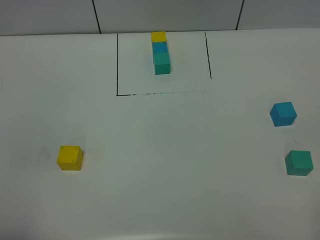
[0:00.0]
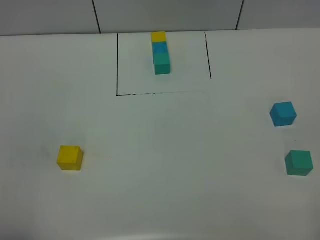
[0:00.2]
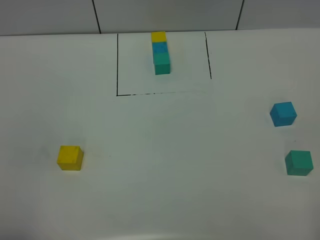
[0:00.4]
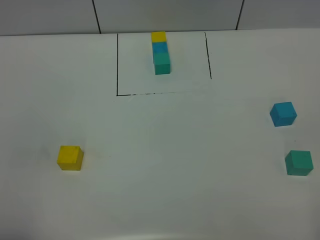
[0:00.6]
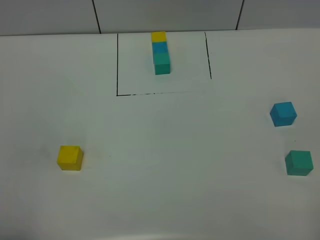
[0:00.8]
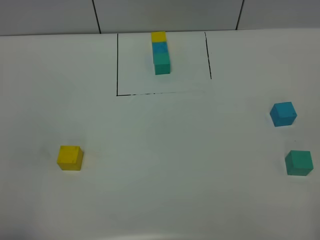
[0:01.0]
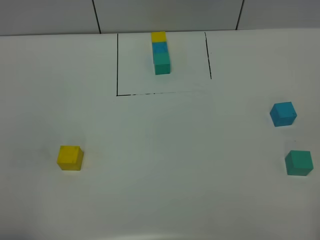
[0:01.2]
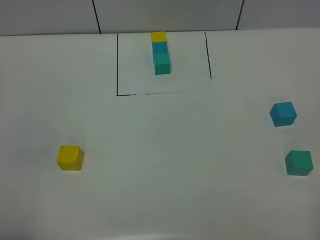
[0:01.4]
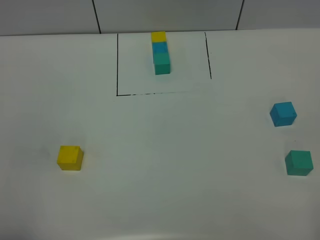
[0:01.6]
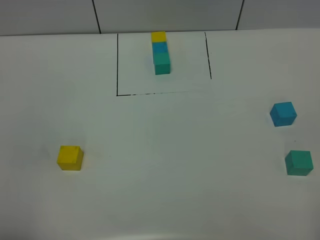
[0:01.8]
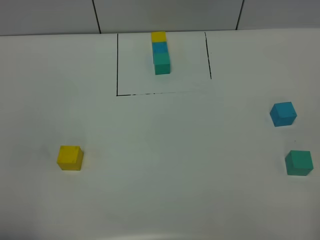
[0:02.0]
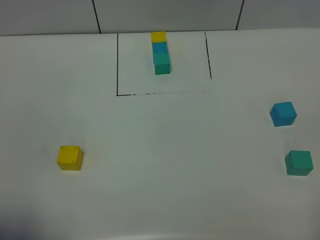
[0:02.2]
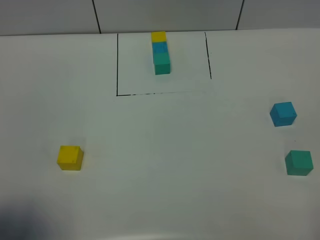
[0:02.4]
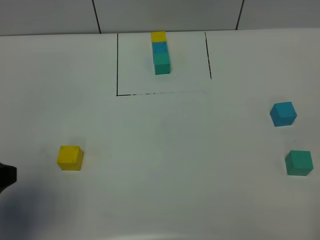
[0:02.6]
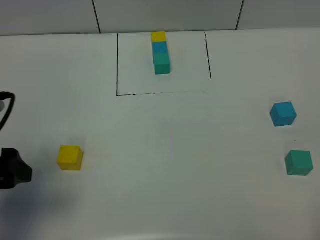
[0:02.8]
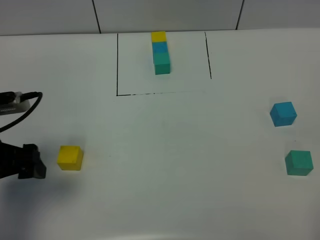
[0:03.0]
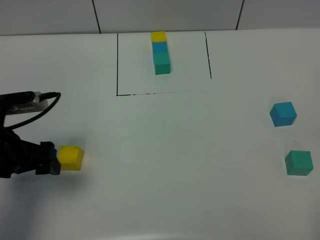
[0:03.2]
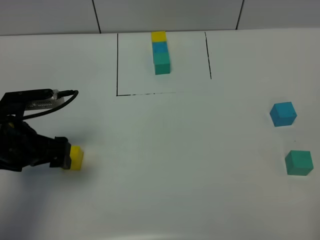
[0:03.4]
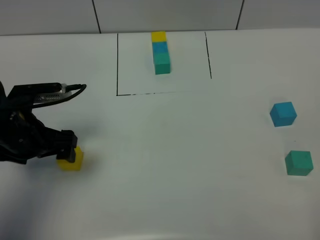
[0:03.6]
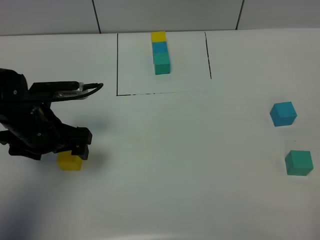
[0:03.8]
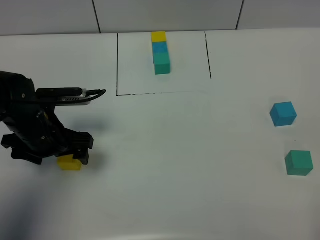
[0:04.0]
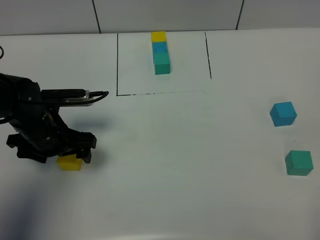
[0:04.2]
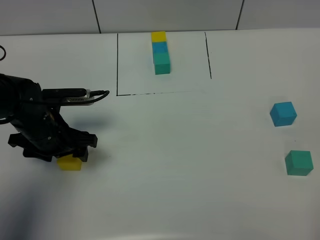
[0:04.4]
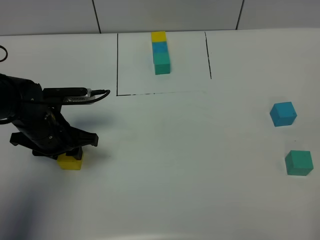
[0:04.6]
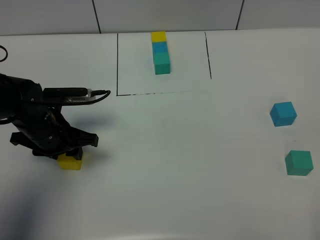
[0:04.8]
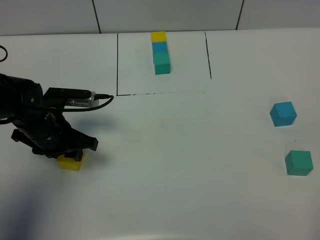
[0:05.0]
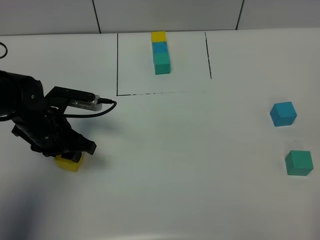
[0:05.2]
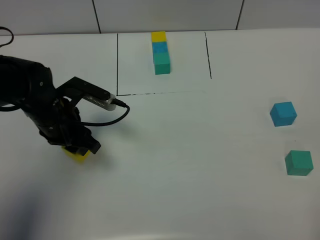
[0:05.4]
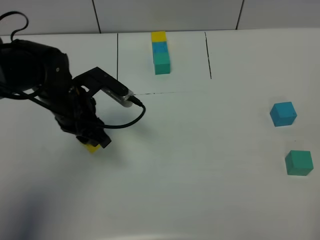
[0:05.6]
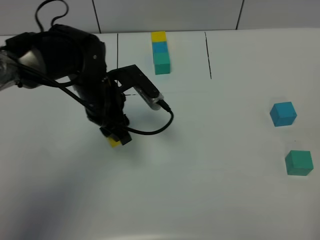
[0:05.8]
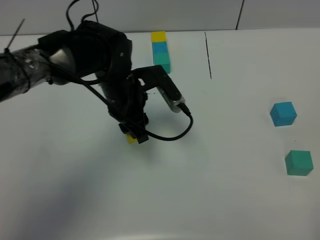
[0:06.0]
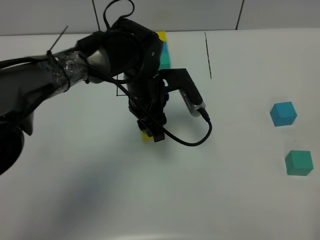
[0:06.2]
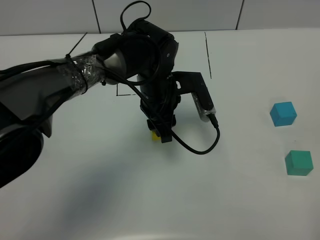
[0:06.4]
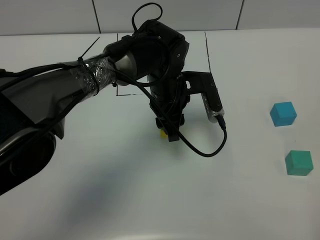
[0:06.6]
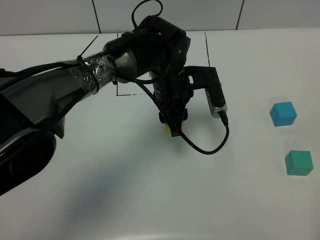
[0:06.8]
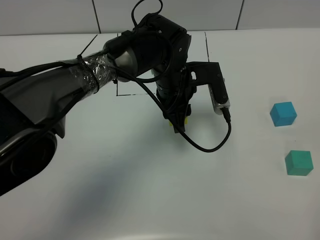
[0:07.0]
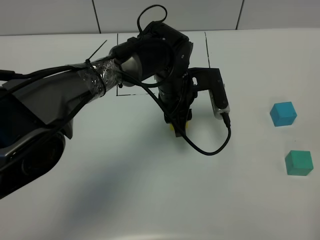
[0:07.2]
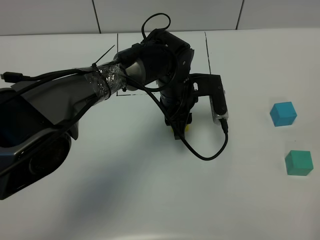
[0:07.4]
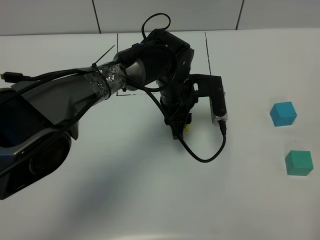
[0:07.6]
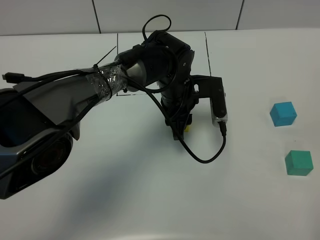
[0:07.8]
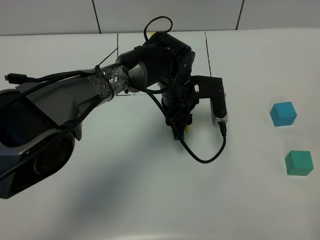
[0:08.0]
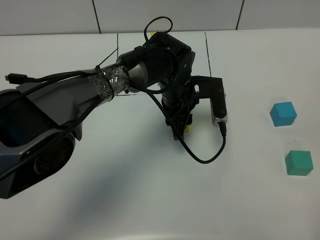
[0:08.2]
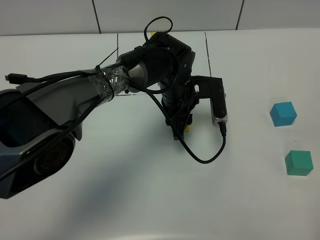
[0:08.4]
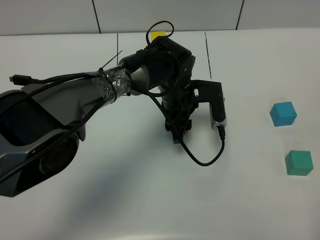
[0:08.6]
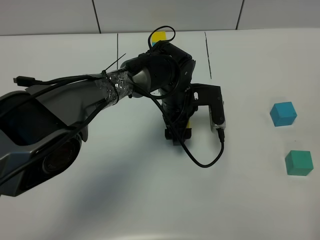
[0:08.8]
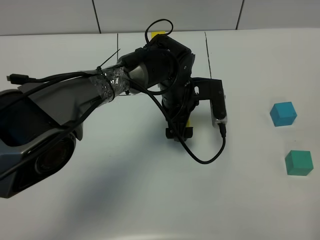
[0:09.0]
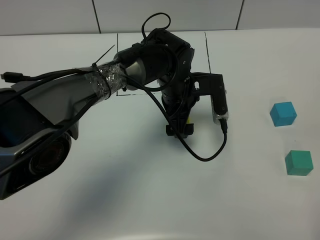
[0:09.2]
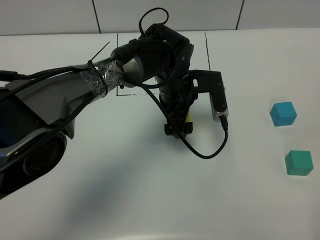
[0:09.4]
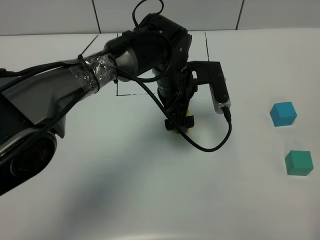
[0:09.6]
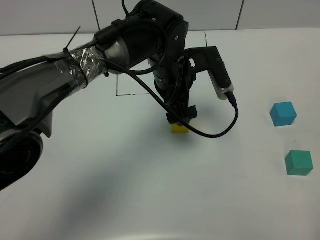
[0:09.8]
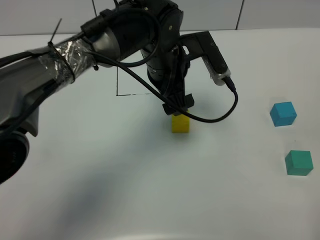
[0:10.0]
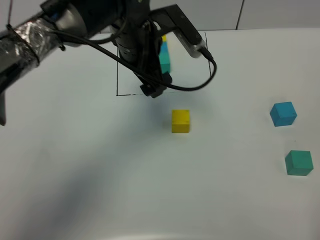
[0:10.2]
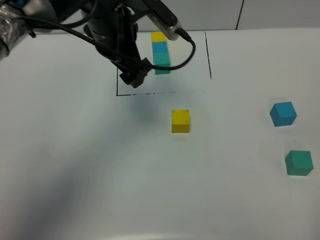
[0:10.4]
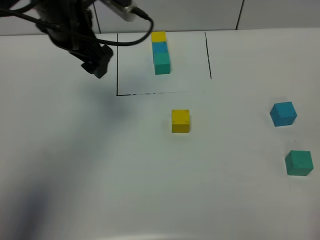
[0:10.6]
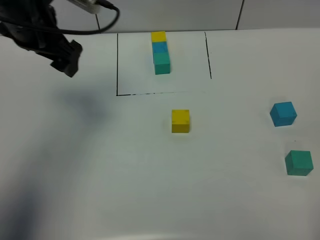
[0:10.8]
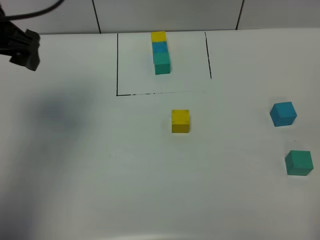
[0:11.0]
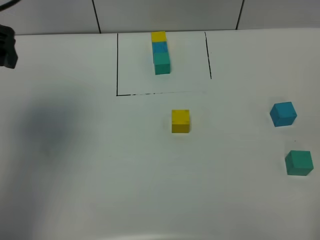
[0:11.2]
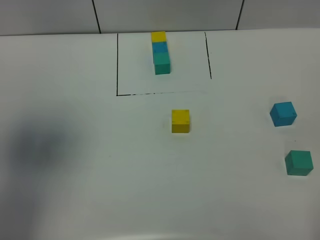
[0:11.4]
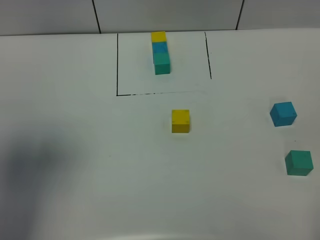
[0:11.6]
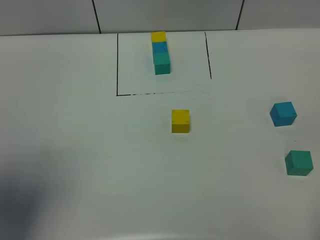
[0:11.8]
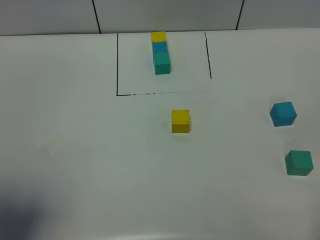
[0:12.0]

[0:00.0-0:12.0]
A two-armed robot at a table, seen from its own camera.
Task of the whole recording: According to the building block template in front, assemble the scattered blocks together.
Step, 0:00.0 to 0:08.6: Put the yellow build block in the center of the table.
0:00.0 to 0:01.6: Neither gripper changes place.
0:01.6 to 0:03.0: The left gripper heads forward, covering about 20 cm, and opens its fingers.
0:03.0 to 0:04.4: The left gripper shifts some 15 cm forward, downward and to the right, and closes up.
0:04.4 to 0:06.0: The left gripper heads to the right, covering about 15 cm, and closes up.
0:06.0 to 0:07.6: The left gripper heads to the right, covering some 10 cm.
0:07.6 to 0:09.0: The left gripper opens up.
0:09.0 to 0:10.4: The left gripper heads upward and to the left, covering approximately 20 cm.
0:10.4 to 0:12.0: The left gripper is displaced backward and to the left by about 35 cm.

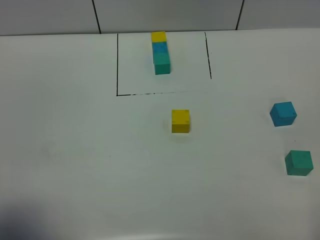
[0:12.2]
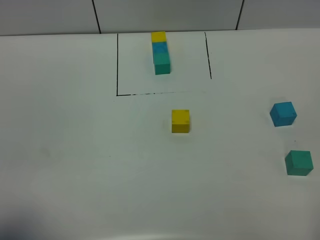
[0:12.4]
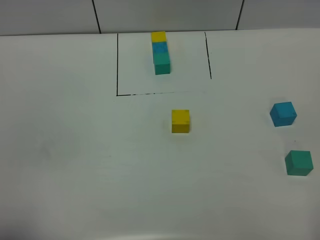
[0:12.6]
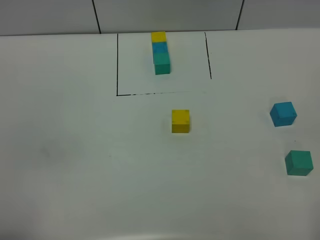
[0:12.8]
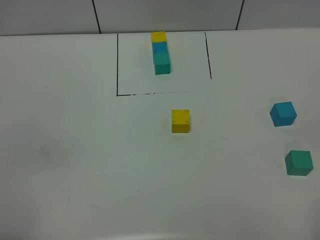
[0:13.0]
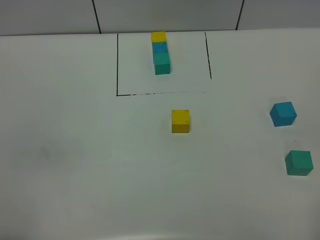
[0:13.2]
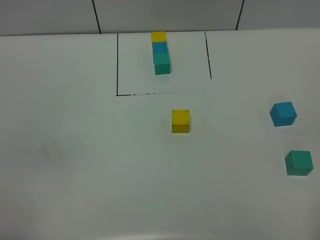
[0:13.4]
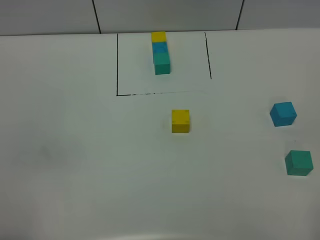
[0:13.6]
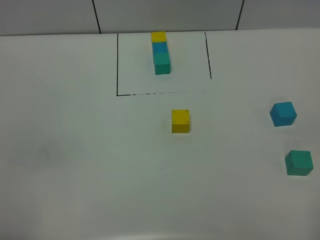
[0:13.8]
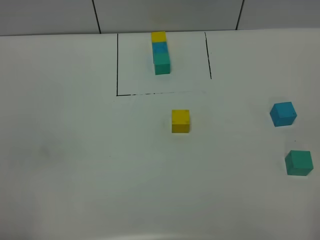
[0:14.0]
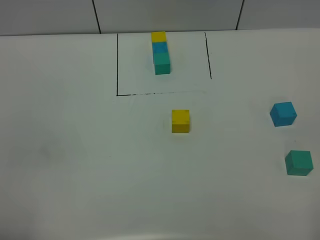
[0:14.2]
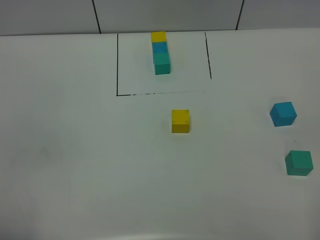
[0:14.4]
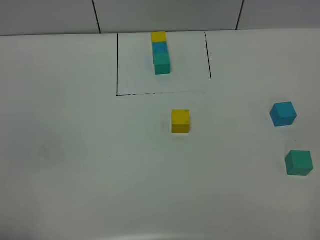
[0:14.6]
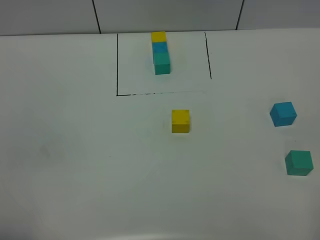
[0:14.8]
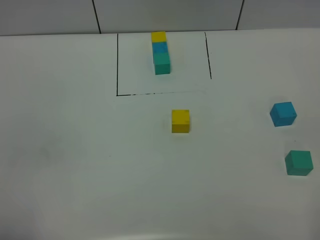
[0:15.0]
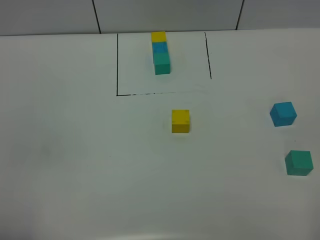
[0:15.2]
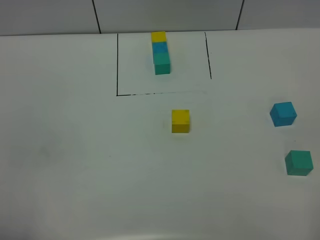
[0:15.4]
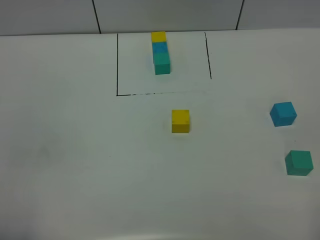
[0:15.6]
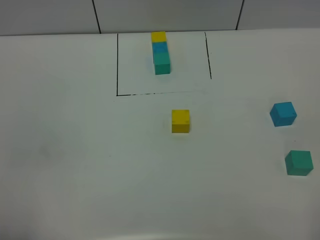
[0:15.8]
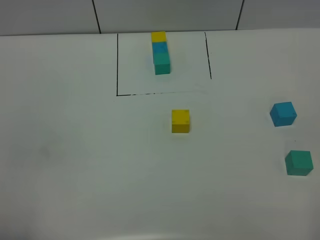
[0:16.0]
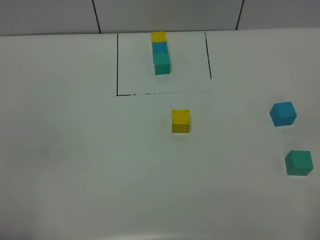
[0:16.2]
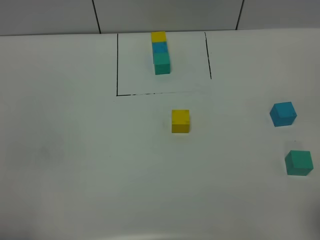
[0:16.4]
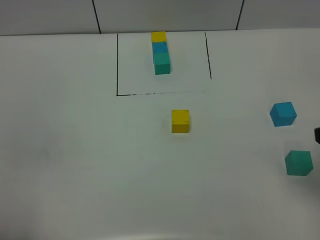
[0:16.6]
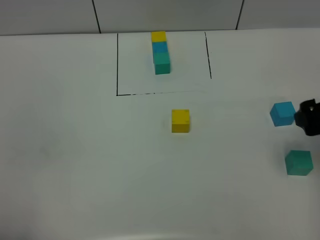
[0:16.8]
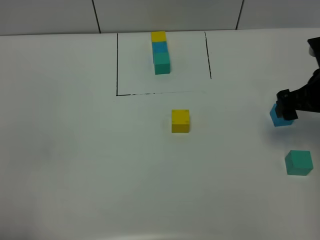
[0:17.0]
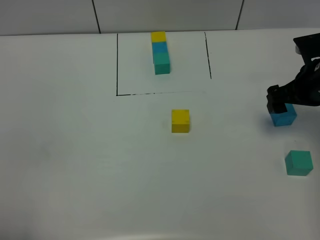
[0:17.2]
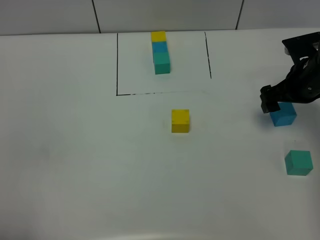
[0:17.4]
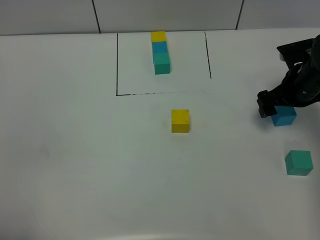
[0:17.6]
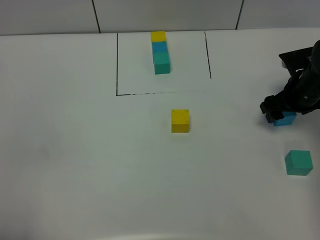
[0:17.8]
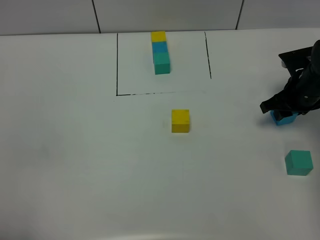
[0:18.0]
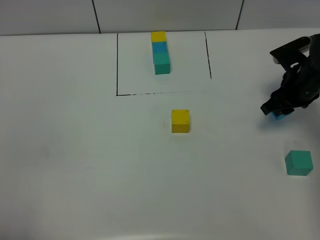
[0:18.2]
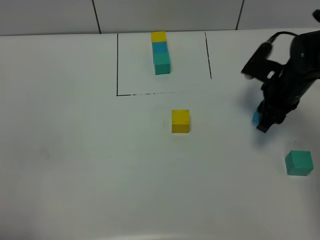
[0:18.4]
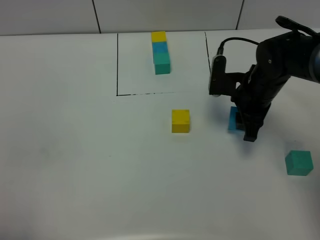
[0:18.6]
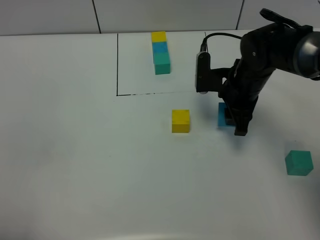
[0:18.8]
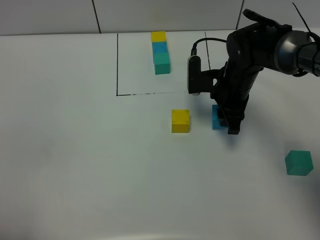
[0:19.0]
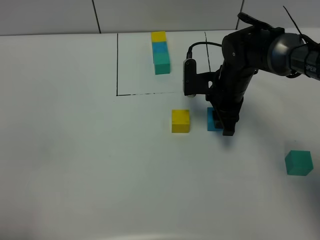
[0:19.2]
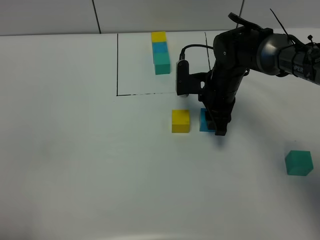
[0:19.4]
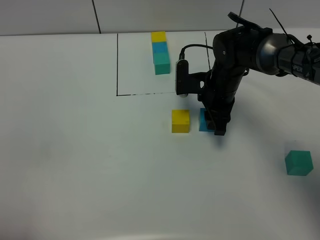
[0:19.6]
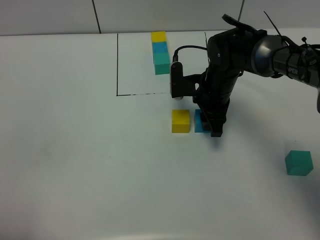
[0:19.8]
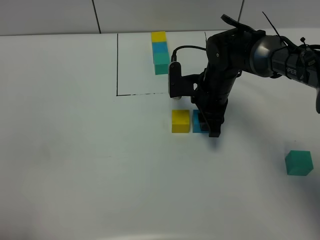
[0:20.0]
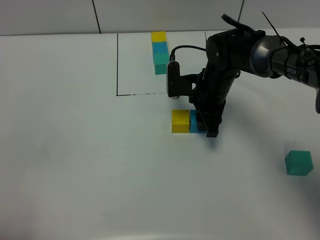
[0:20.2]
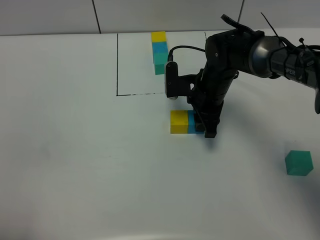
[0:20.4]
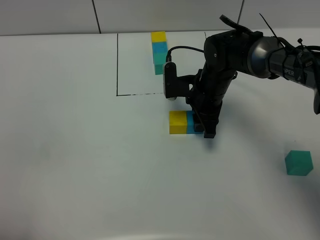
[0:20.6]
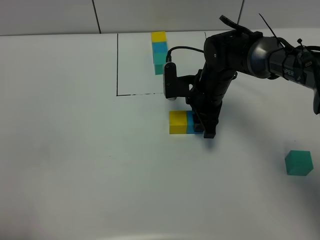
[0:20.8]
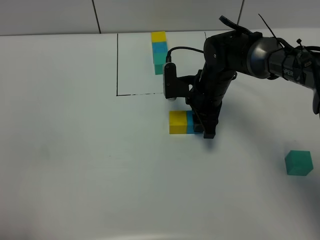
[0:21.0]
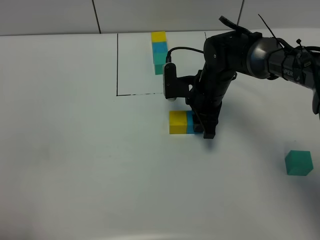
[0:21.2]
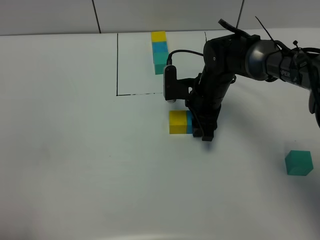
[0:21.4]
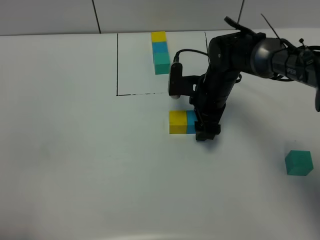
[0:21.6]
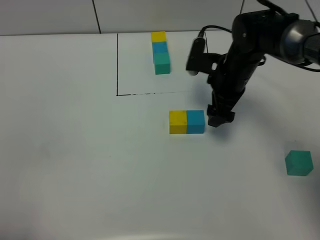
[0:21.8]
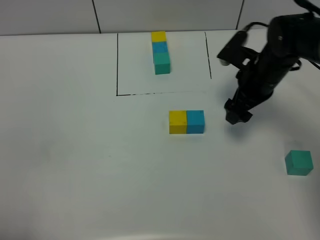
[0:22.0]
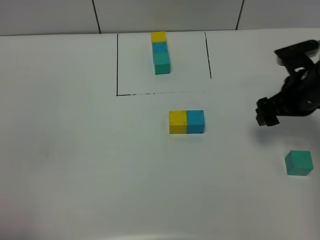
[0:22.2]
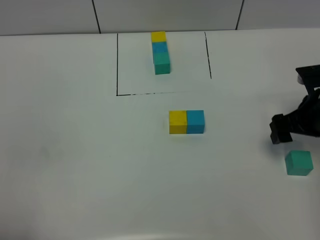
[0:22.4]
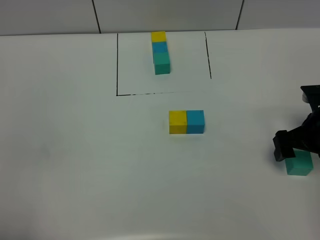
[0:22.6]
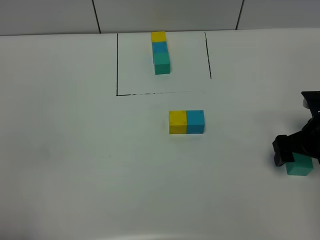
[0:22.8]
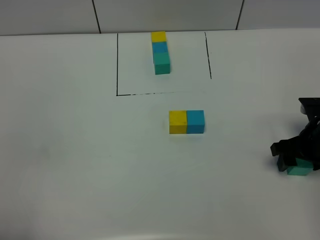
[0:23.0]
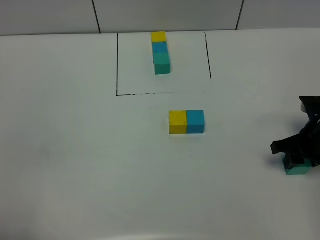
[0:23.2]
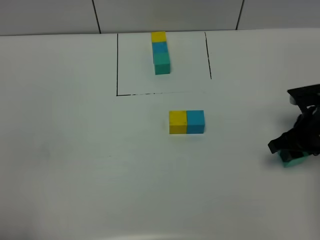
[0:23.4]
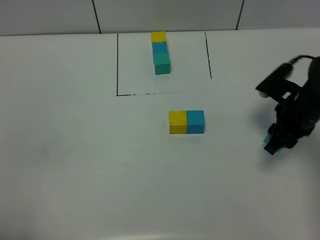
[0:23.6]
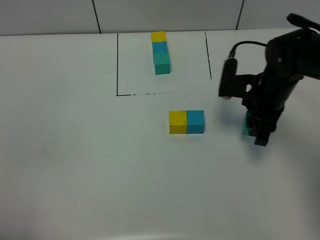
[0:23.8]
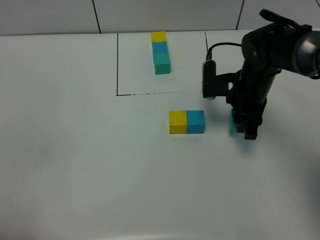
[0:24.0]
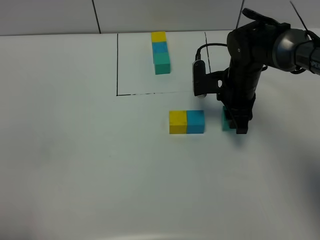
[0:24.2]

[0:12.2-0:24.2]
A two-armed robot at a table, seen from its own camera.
Task of the whole recording: According to the building block template in front, assemble the scattered blocks together.
Step, 0:12.2 to 0:21.6: Put the orange build block on the right of the build block.
0:12.2 to 0:13.8: The left gripper moves backward and downward, roughly 10 cm.
0:15.2 to 0:16.6: The right gripper shifts roughly 20 cm forward.
0:16.6 to 0:18.2: The right gripper is displaced forward and downward by some 25 cm, and closes its fingers.
0:18.2 to 0:19.8: The right gripper is displaced to the left by about 15 cm.
0:19.8 to 0:21.2: The two grippers keep their place.
0:21.2 to 0:22.6: The right gripper goes some 20 cm to the right and backward, and opens.
0:22.6 to 0:24.2: The right gripper is displaced to the left and forward by about 20 cm, and closes.
